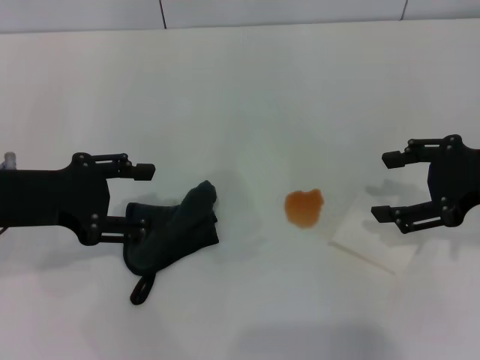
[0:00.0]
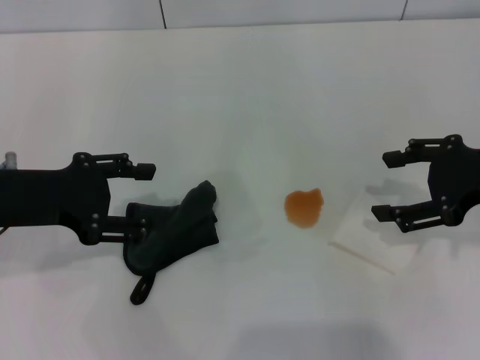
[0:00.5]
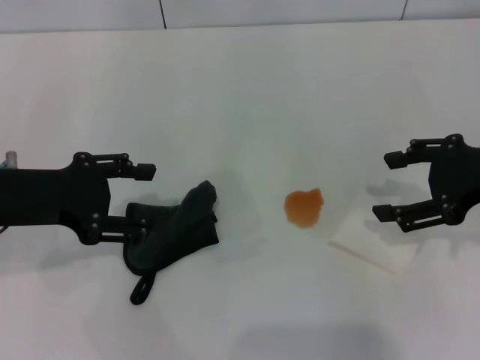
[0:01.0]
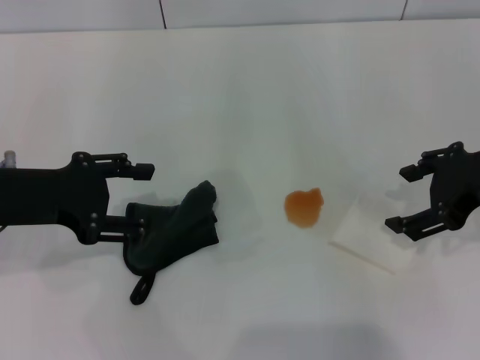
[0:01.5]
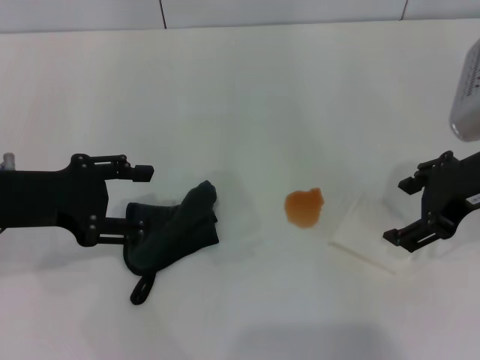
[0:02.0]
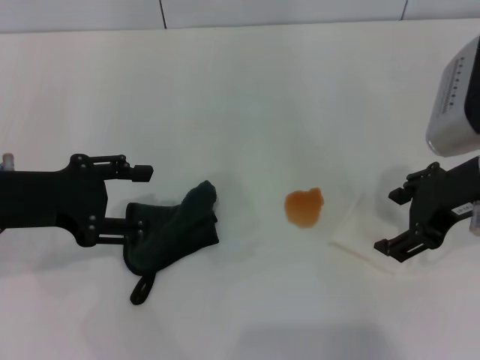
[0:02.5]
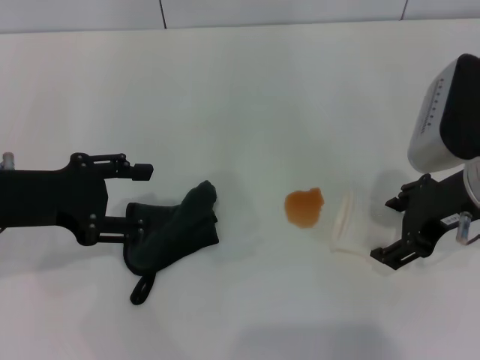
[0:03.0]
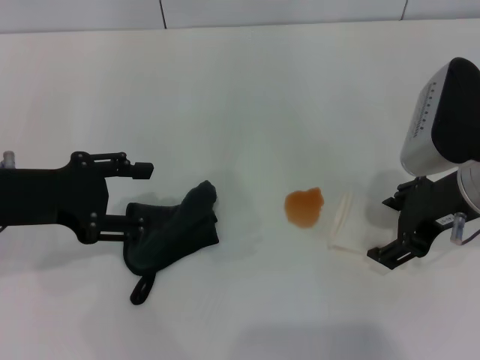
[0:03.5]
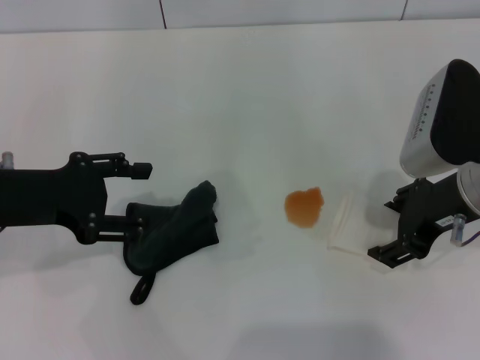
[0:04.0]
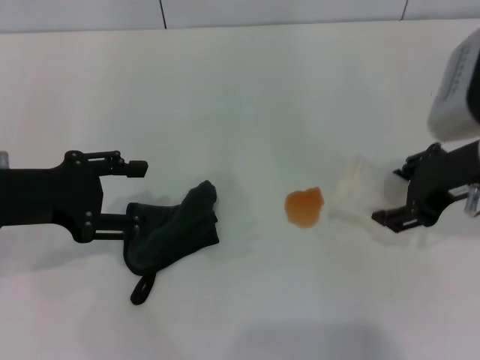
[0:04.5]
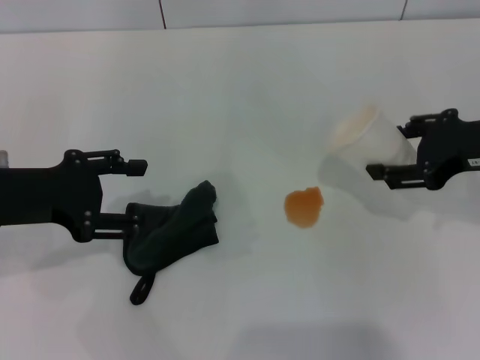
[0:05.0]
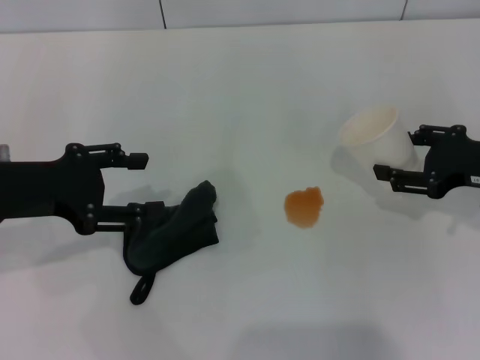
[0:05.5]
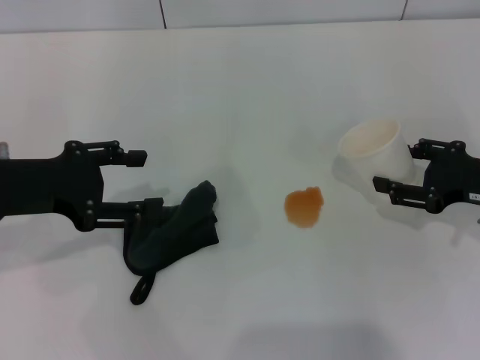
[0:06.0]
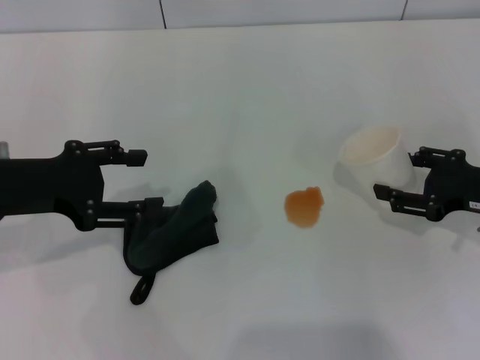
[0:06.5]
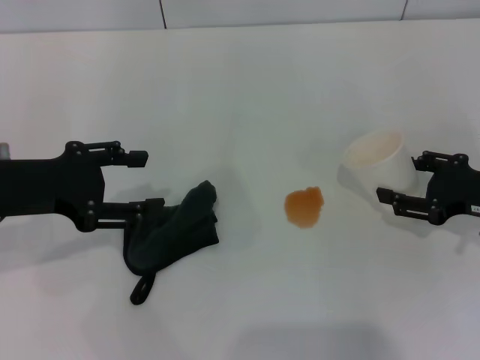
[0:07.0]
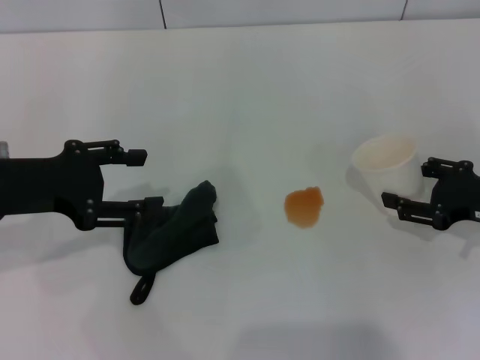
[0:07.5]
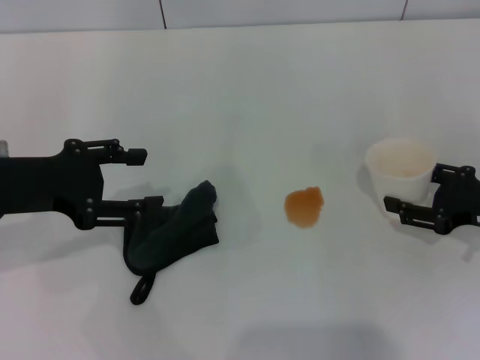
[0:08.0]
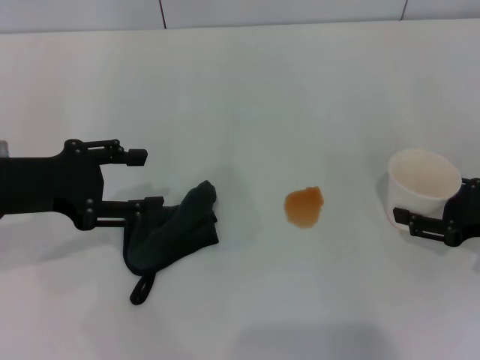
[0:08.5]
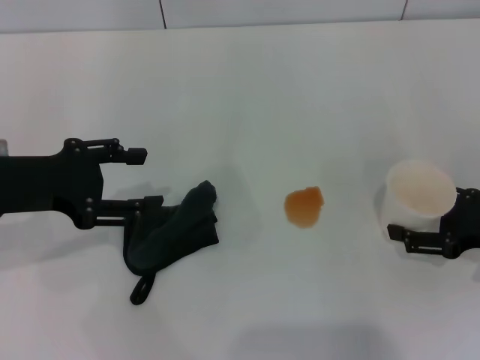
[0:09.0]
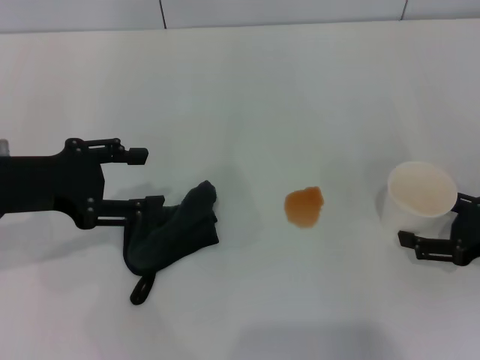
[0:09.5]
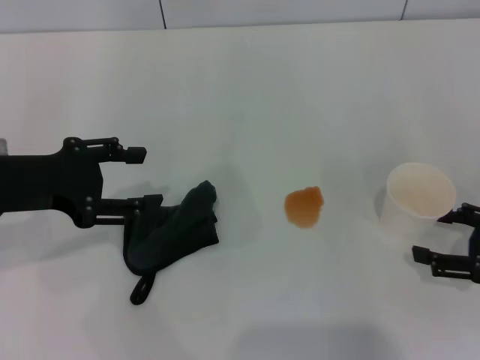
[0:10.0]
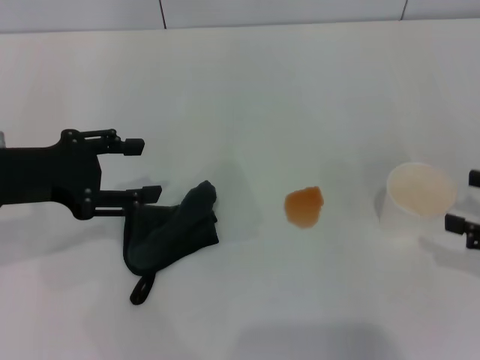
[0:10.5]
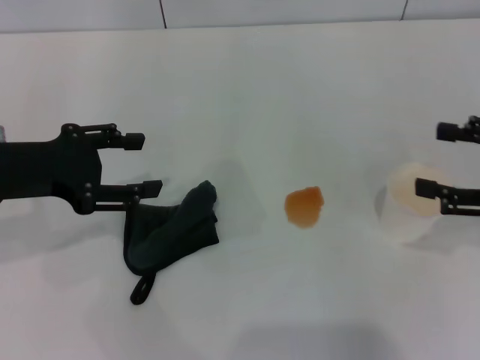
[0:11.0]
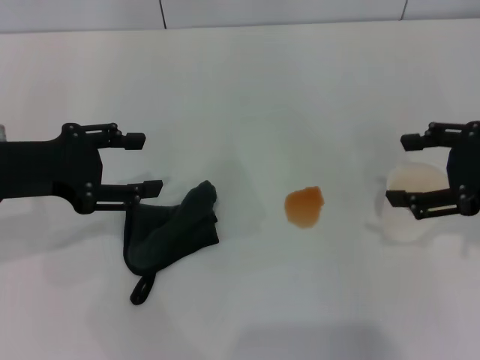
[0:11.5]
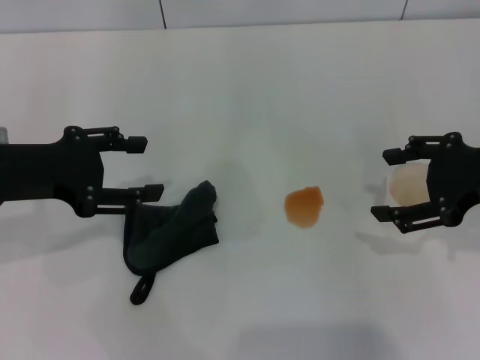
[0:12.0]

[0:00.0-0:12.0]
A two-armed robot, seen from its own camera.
Step, 0:00.0 to 0:04.0: Grasp the paper cup with the right gripper.
Step, 0:04.5 to 0:10.0: Stand the paper cup upright with the right gripper.
0:00.0 to 0:02.0: The right gripper heads to the left, covering about 5 cm.
0:02.0 to 0:04.0: The grippers stay close to where they were, moving slightly.
0:04.0 to 0:06.0: The right gripper goes roughly 10 cm to the right and downward, and closes.
0:06.0 to 0:08.0: The grippers stay close to where they were, moving slightly.
0:08.0 to 0:10.0: The right gripper shifts by roughly 5 cm, and opens up.
0:10.0 to 0:12.0: The right gripper heads upward, to the left and forward, covering roughly 15 cm.

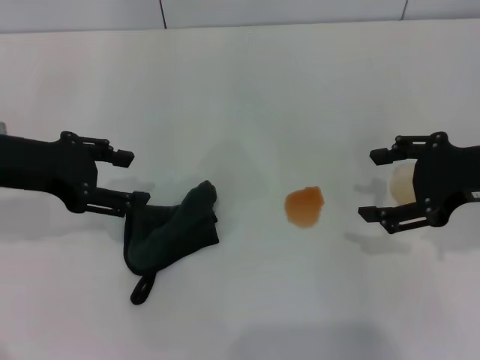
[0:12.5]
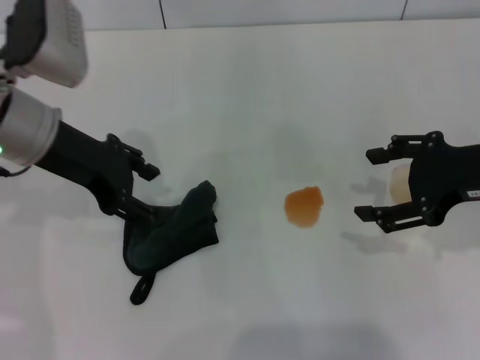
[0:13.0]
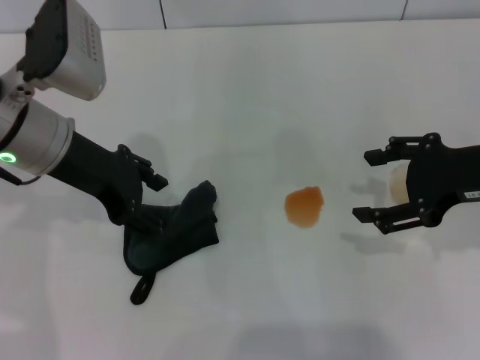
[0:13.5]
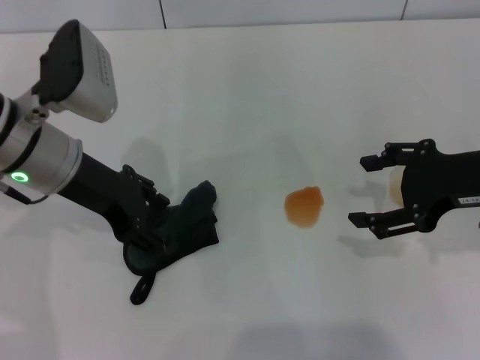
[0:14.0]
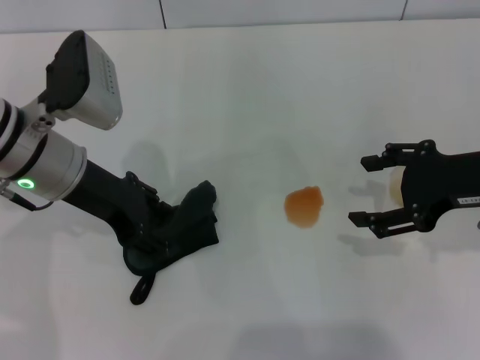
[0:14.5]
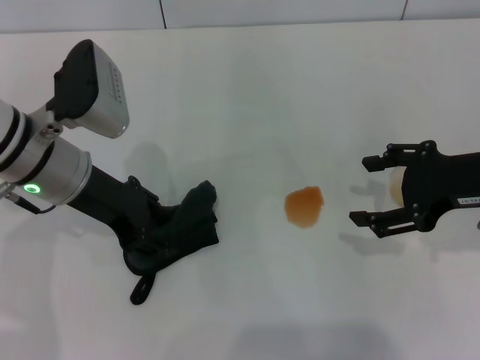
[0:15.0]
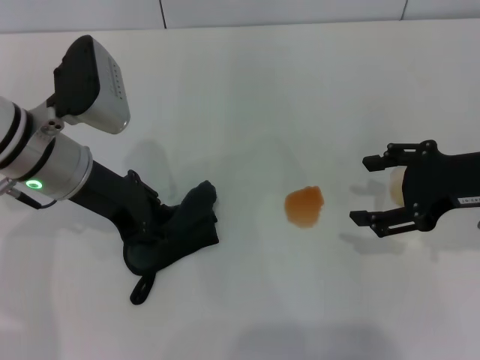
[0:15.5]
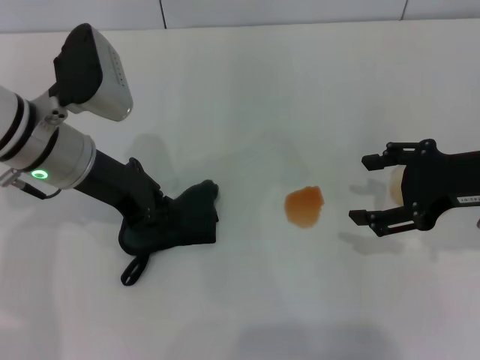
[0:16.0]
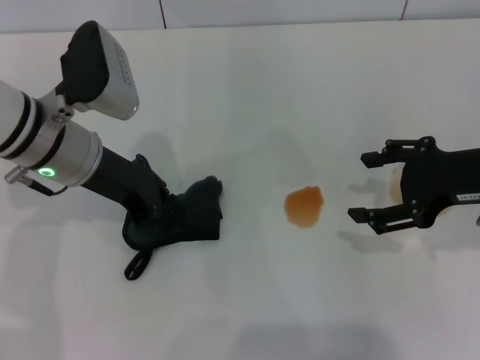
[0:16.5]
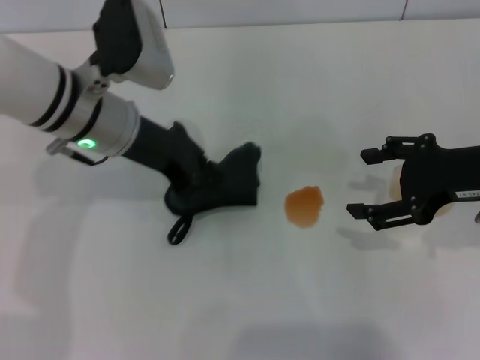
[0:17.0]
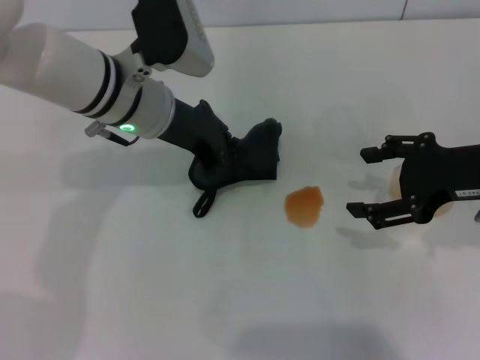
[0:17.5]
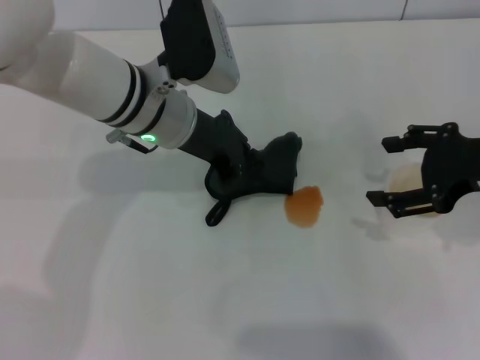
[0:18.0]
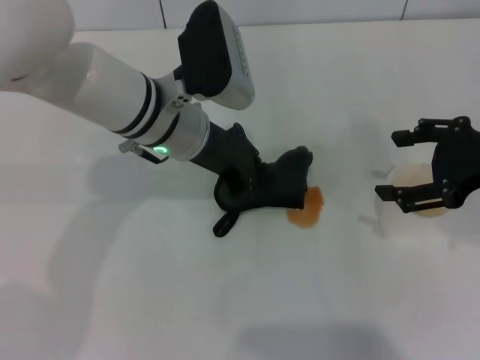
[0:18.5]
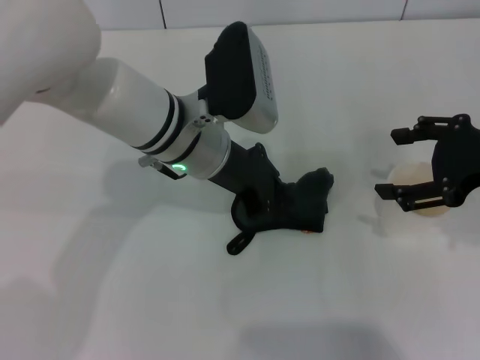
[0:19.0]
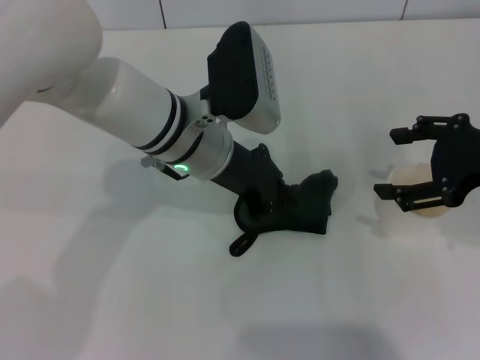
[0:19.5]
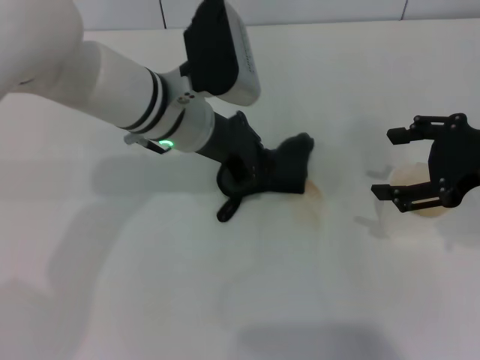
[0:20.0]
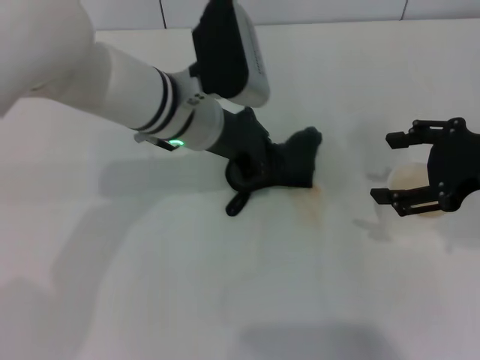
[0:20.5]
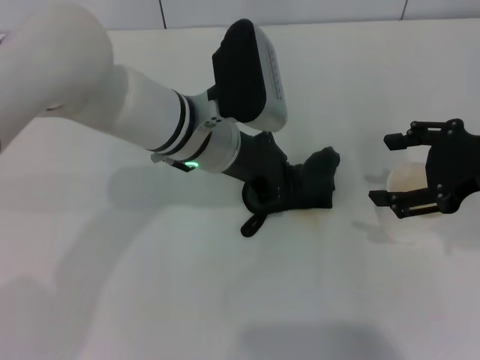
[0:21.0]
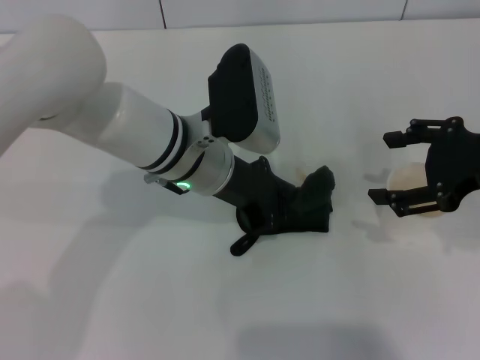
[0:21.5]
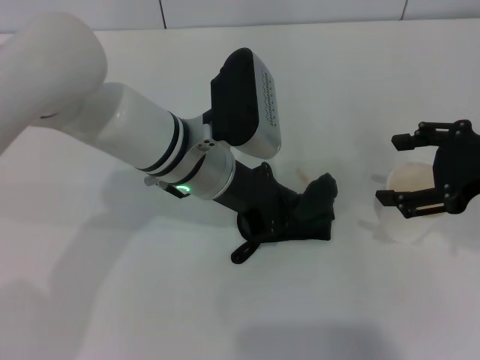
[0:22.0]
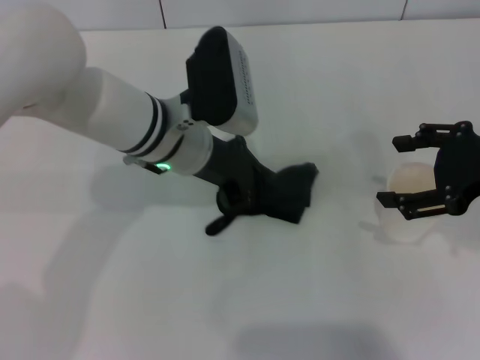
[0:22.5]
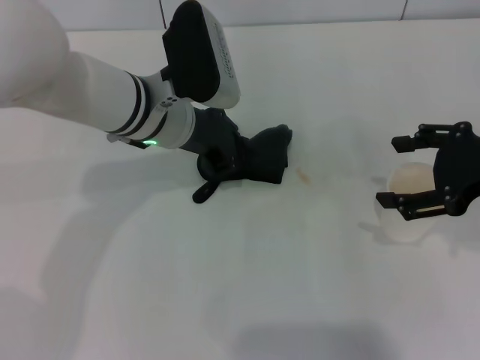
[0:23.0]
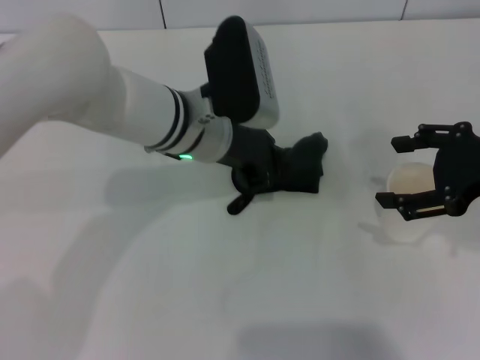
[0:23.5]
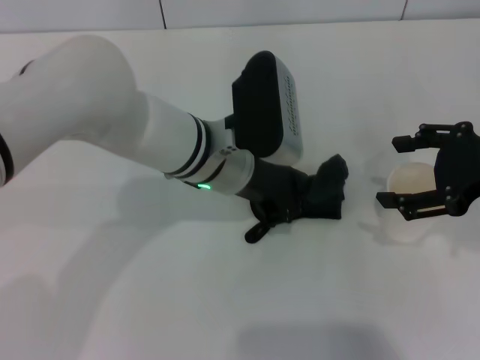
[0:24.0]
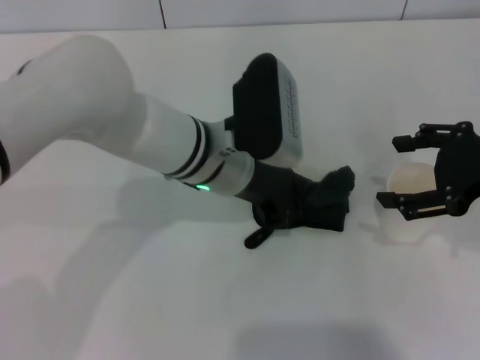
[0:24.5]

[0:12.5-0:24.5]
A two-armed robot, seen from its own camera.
Step, 0:12.5 to 0:16.0: Grasp the rag with the left gripper.
0:12.5 to 0:14.5: The left gripper is displaced to the right by about 5 cm.
0:14.5 to 0:16.5: The left gripper closes.
0:16.5 to 0:18.5: The left gripper is displaced to the right by some 10 cm.
0:18.5 to 0:24.5: The grippers stay close to where they were, moving slightly.

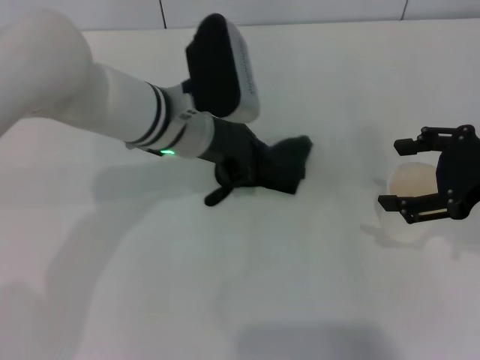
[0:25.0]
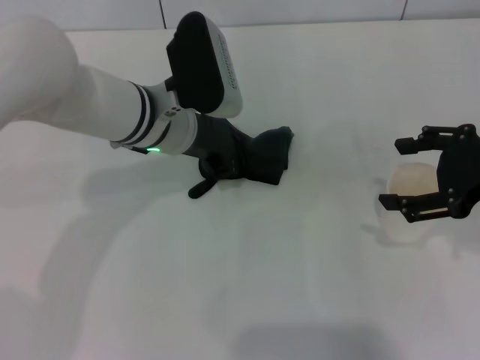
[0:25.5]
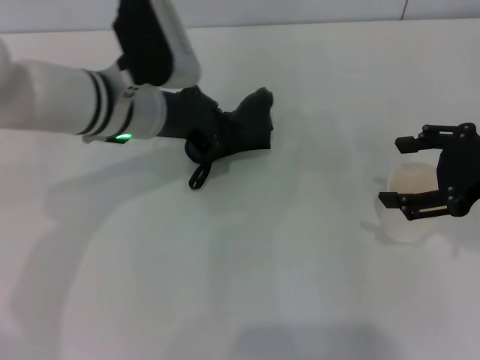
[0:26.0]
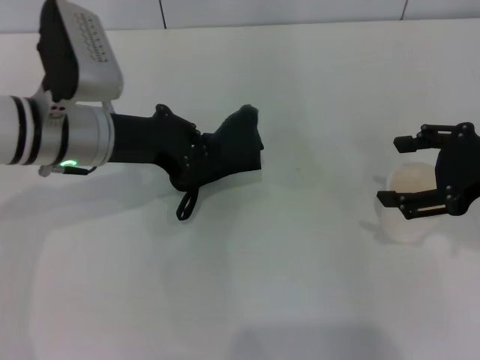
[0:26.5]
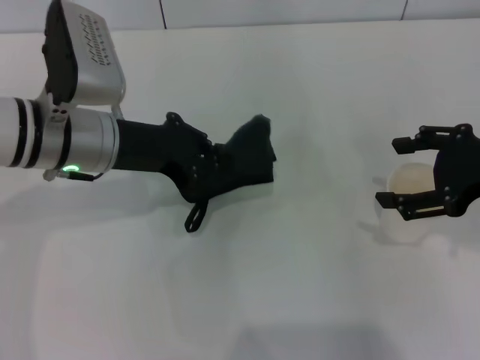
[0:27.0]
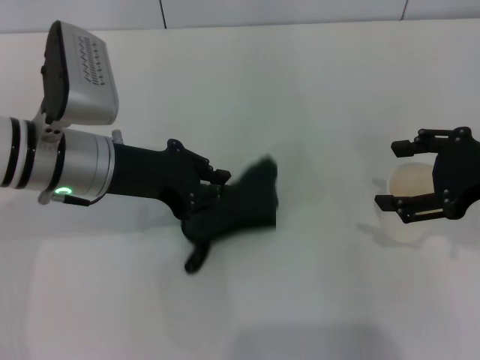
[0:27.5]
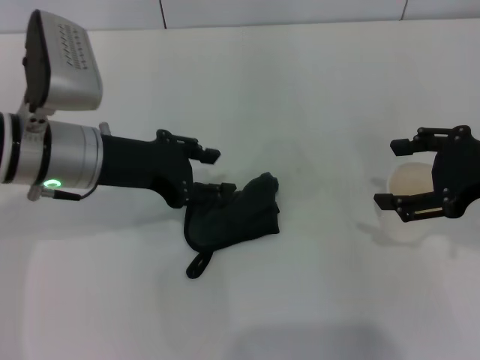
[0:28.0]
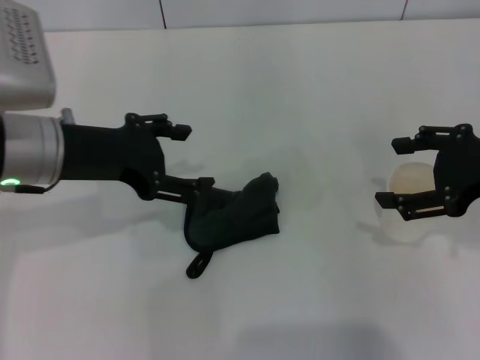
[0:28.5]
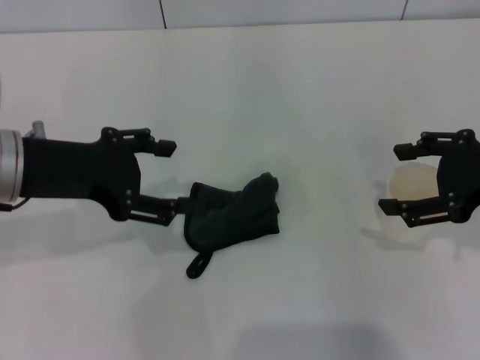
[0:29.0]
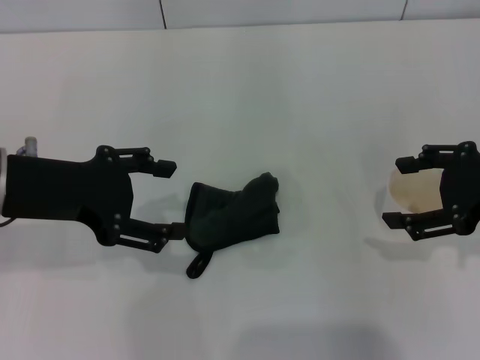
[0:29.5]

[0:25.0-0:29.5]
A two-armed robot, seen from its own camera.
Step, 0:26.0 to 0:28.0: Place the rag on the table with the left gripper.
0:25.0 to 0:27.0: The left gripper moves to the left, about 10 cm.
0:27.0 to 0:29.5: The left gripper heads backward and to the left, covering approximately 10 cm, and opens.
